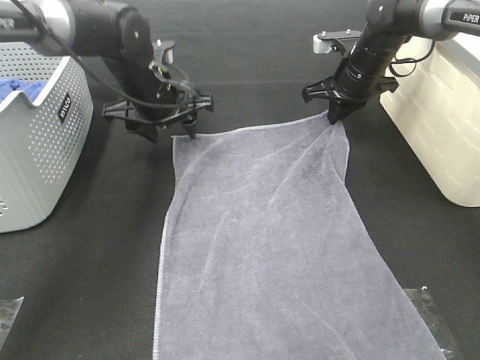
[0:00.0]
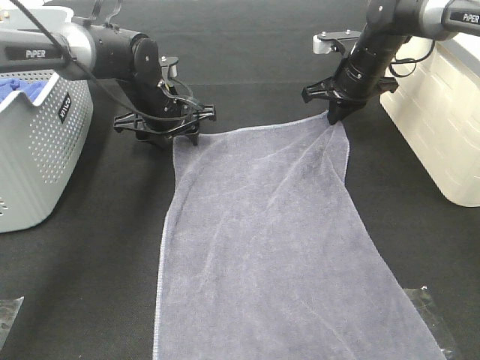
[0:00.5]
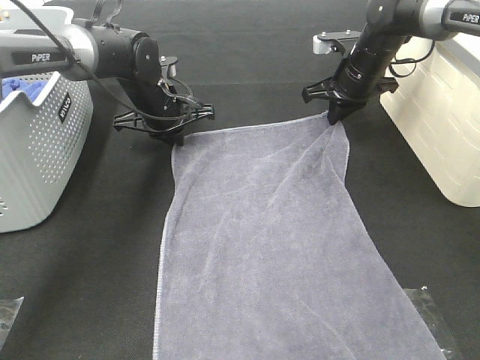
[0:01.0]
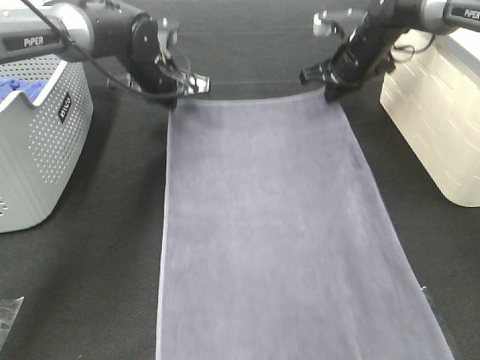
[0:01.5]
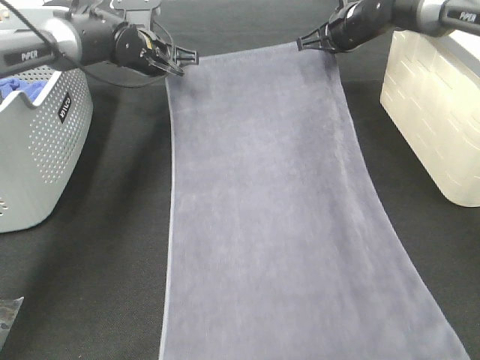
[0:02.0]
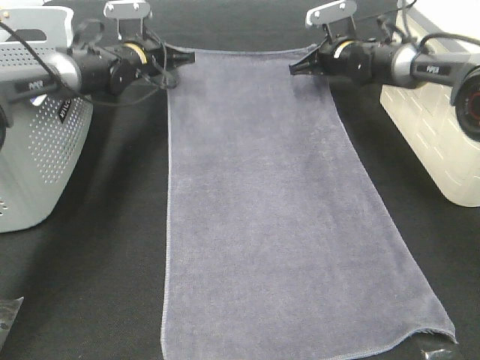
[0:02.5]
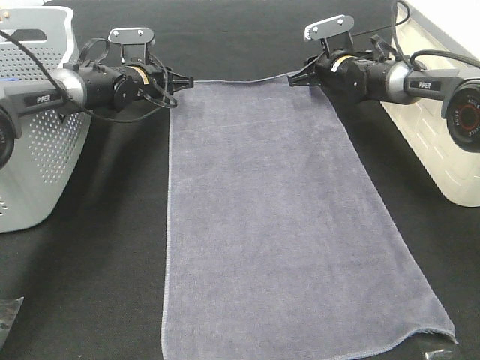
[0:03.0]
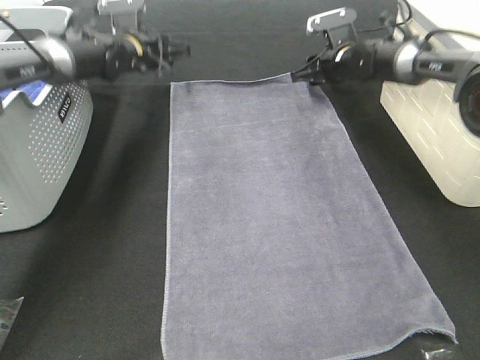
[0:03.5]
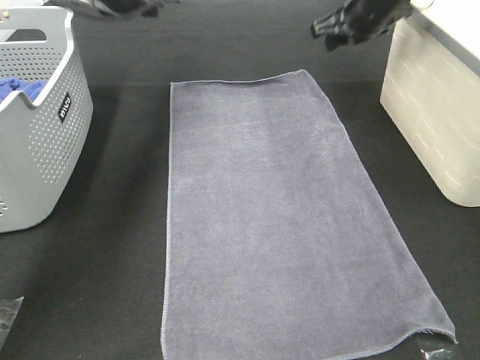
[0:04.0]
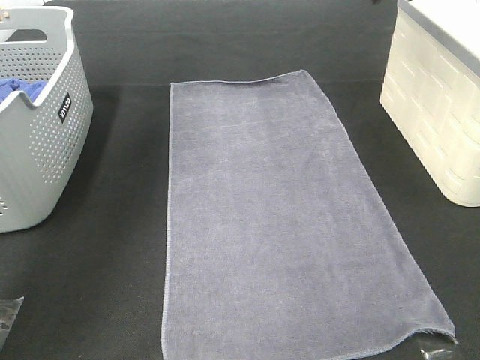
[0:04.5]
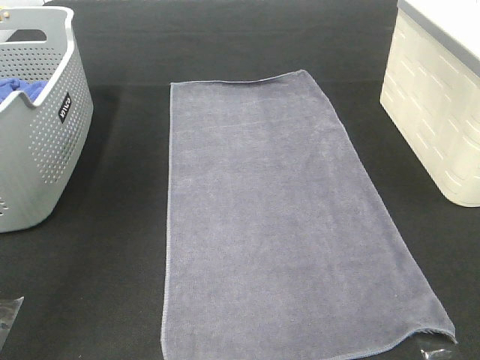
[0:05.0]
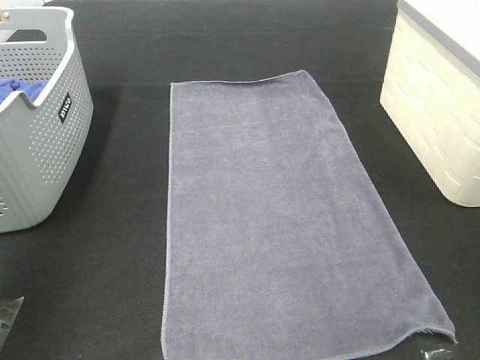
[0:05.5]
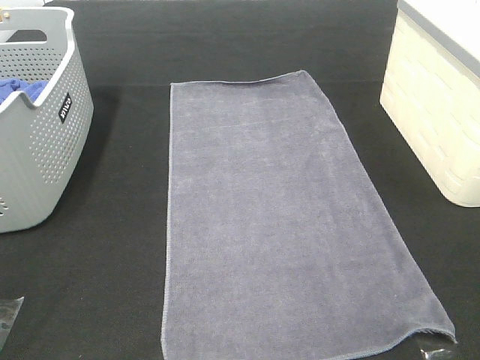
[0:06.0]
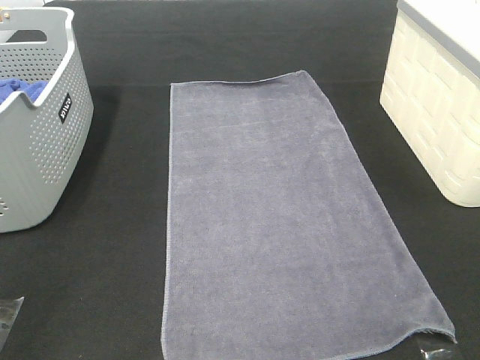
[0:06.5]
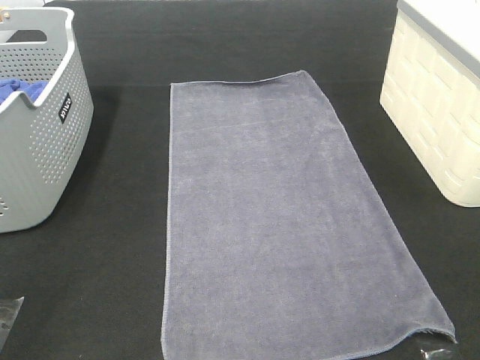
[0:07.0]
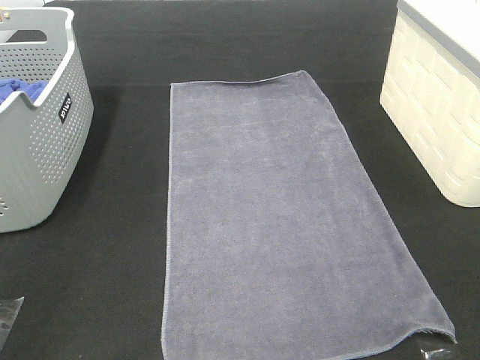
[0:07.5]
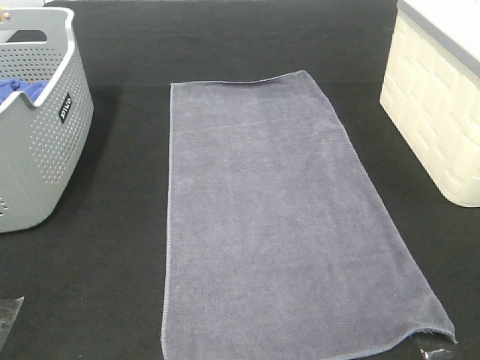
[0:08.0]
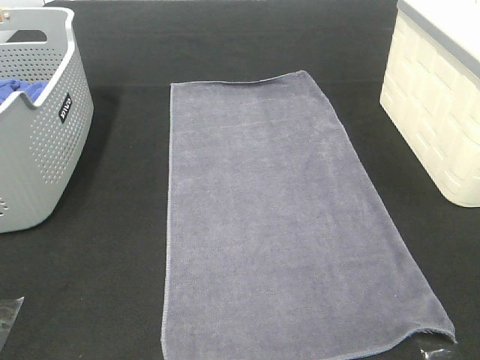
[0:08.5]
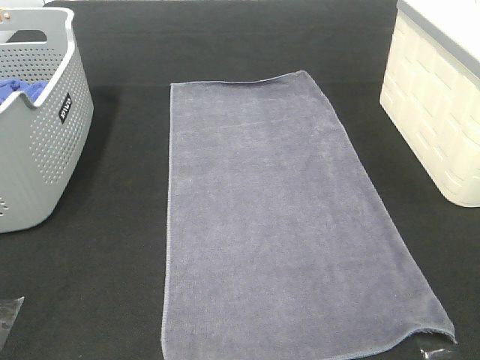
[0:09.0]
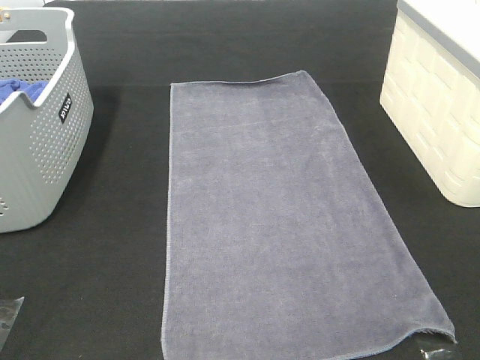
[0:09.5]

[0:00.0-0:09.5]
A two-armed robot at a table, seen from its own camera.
Task of the whole recording: Remove the towel and place it.
0:00.0 to 0:02.0: The right gripper travels forward by approximately 5 cm; the left gripper goes about 10 cm forward, and closes.
0:02.0 to 0:04.0: The right gripper goes some 5 cm upward, and opens, while the left gripper is displaced upward by approximately 15 cm, and opens its fingers.
0:04.0 to 0:05.5: Both grippers travel together backward, roughly 35 cm.

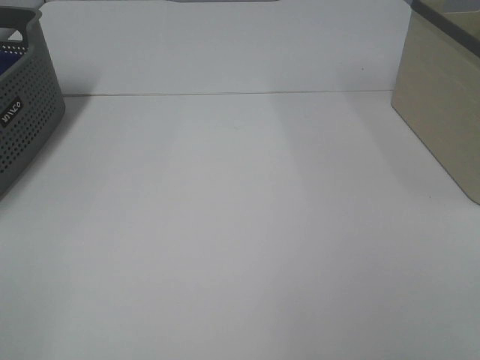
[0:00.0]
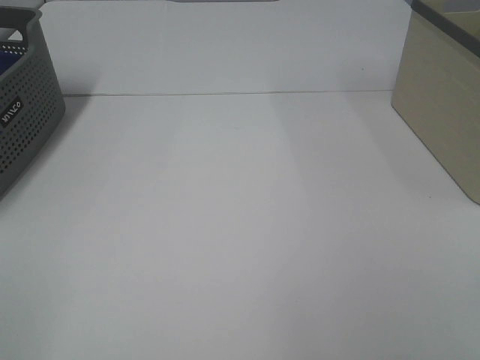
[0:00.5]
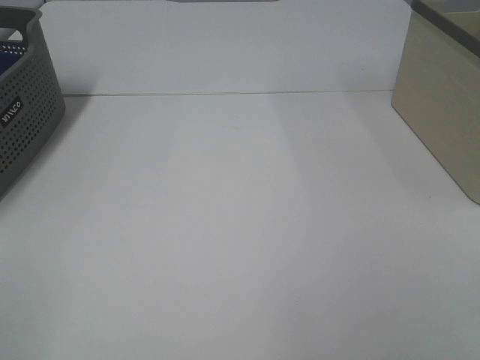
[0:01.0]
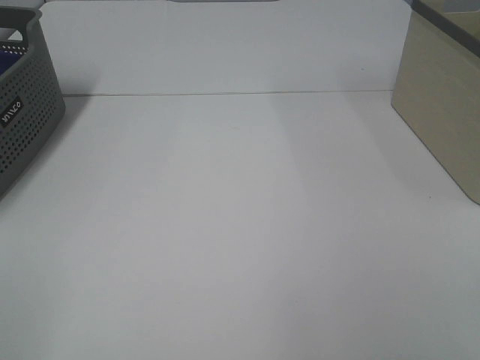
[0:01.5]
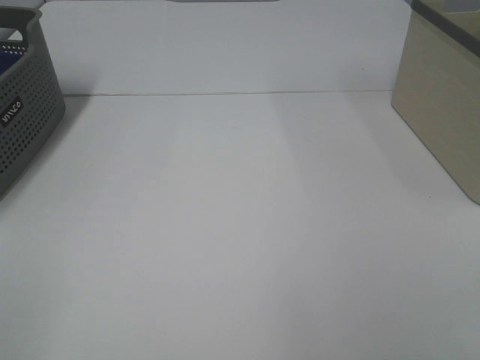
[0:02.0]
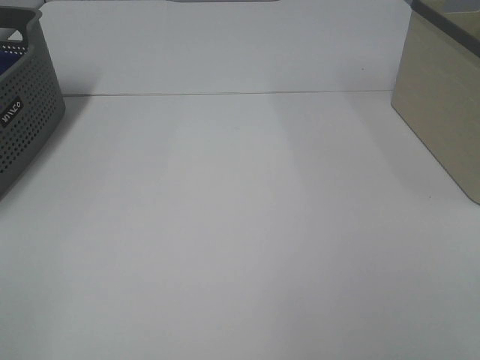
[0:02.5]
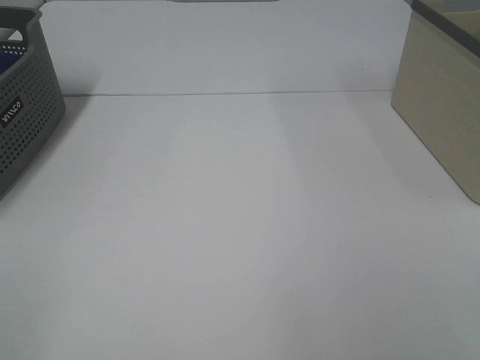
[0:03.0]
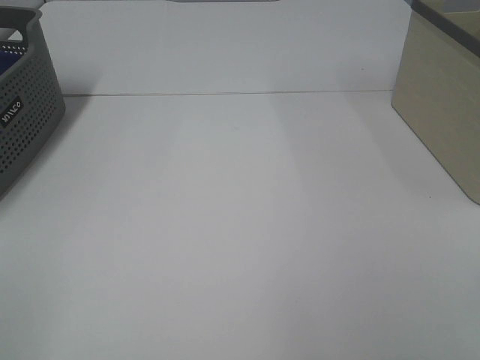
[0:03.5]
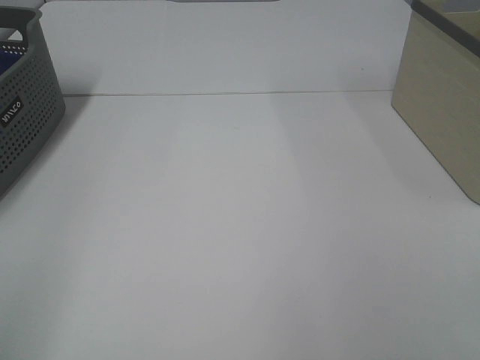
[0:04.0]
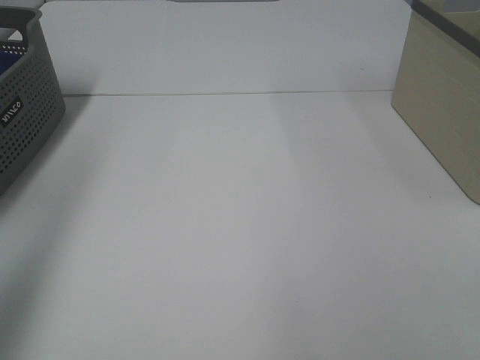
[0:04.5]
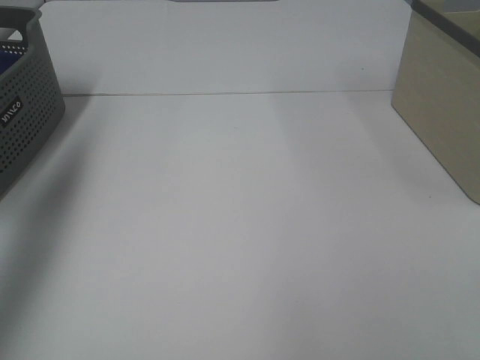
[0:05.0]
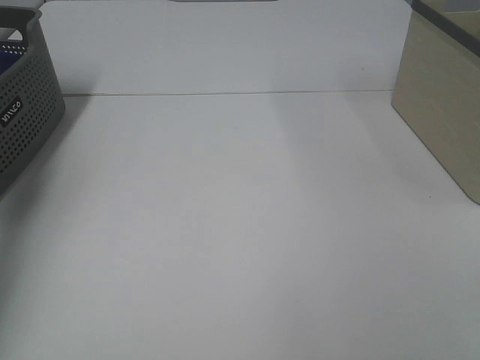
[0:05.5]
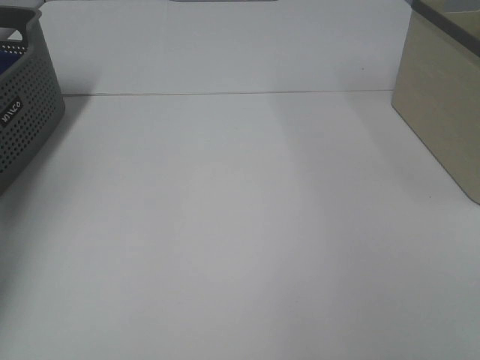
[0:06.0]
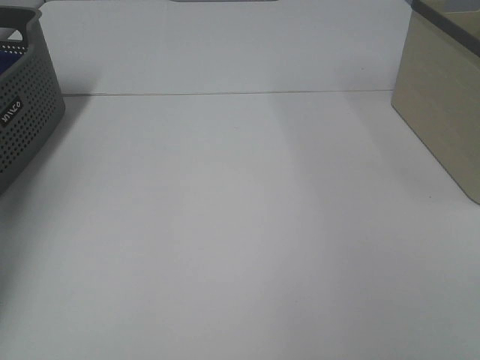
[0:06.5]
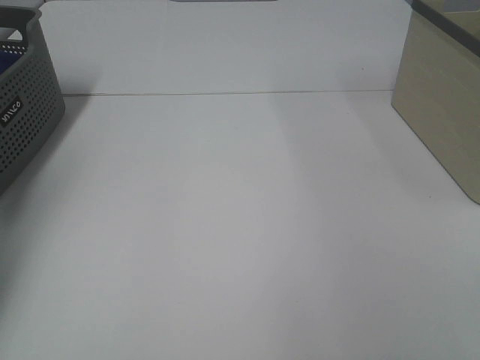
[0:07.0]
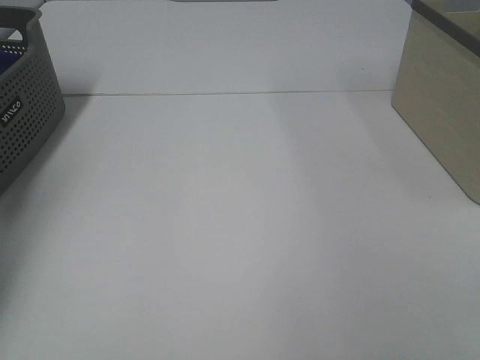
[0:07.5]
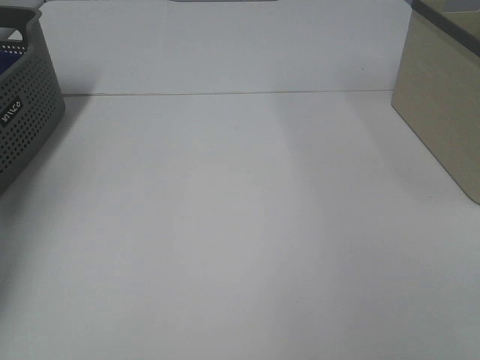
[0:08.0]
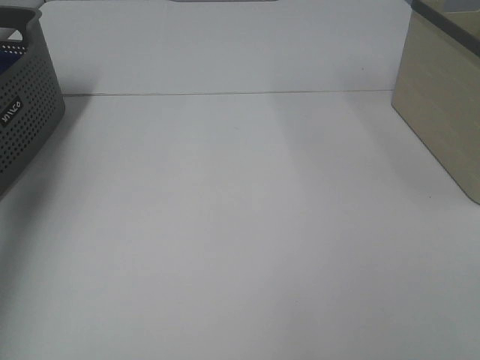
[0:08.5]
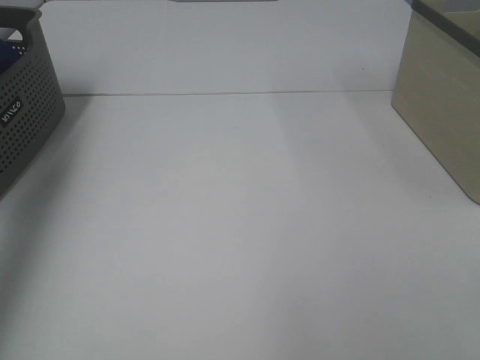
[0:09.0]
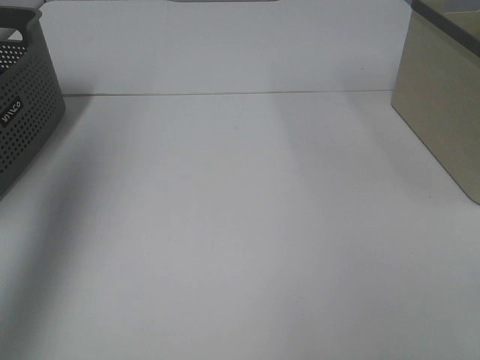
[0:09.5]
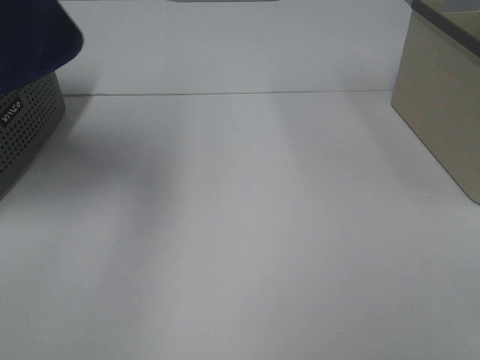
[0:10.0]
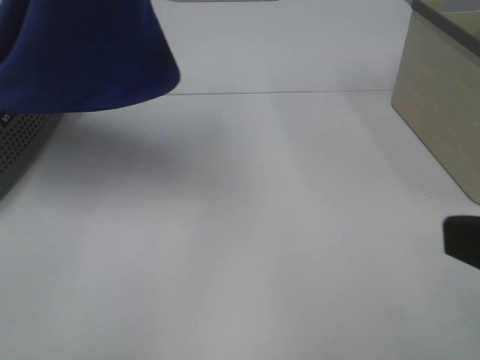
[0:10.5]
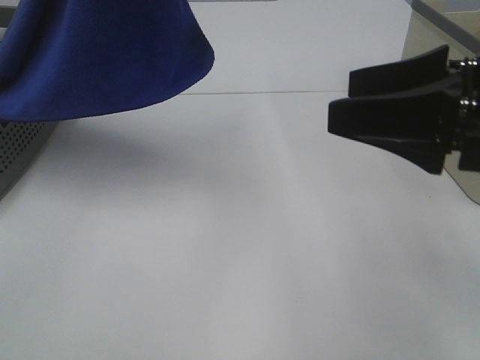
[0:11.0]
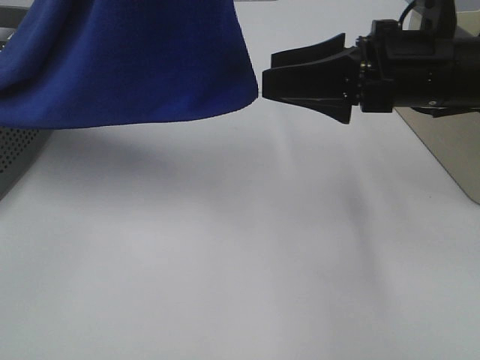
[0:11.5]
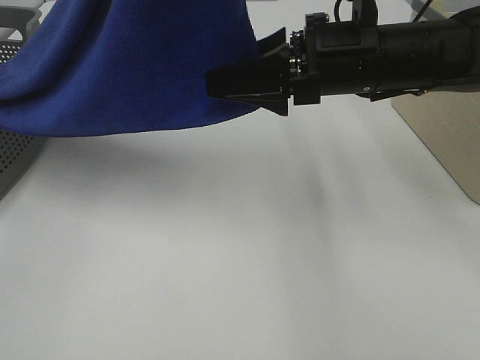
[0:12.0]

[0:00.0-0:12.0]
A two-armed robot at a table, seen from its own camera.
Task of the whole recording: Remove the towel and place it.
0:00.0 to 0:02.0: The two grippers keep their place.
0:04.0 to 0:06.0: The left gripper heads forward, covering some 40 cm.
0:08.0 to 0:10.0: The left gripper shifts approximately 50 cm upward, to the right and backward.
0:10.0 to 0:12.0: The left gripper moves to the right, approximately 10 cm. Meanwhile the right gripper travels forward and to the left by some 35 cm.

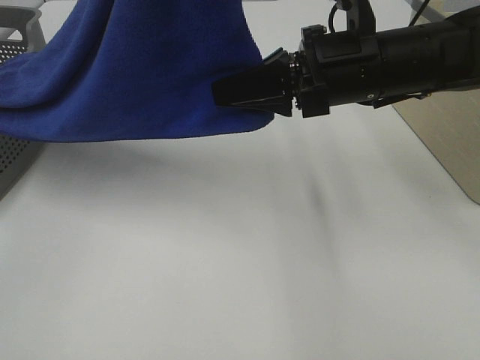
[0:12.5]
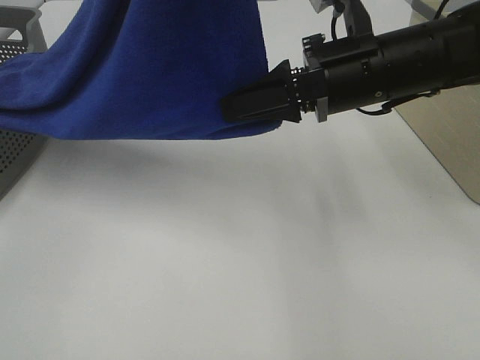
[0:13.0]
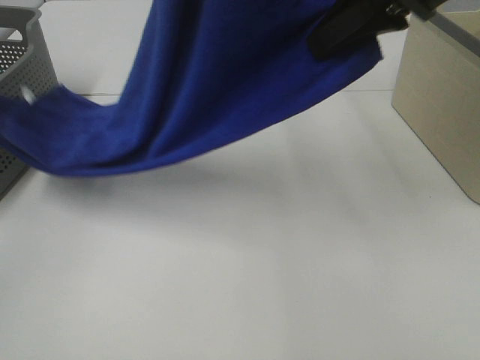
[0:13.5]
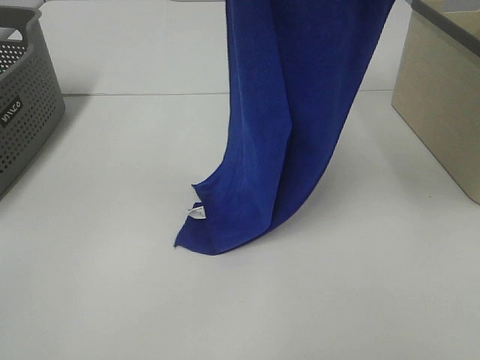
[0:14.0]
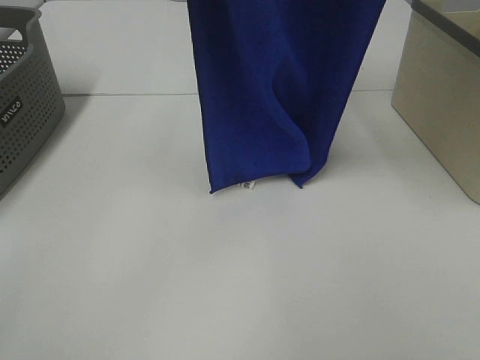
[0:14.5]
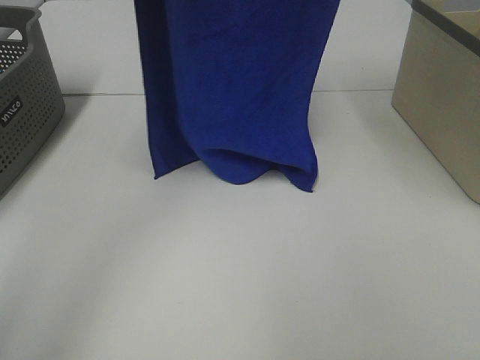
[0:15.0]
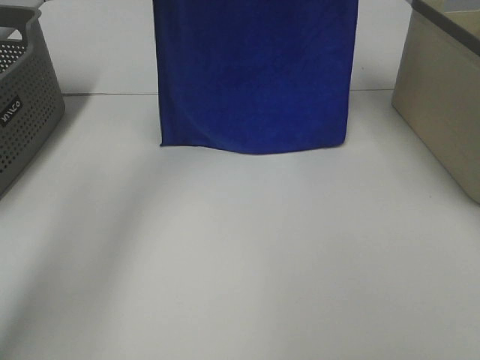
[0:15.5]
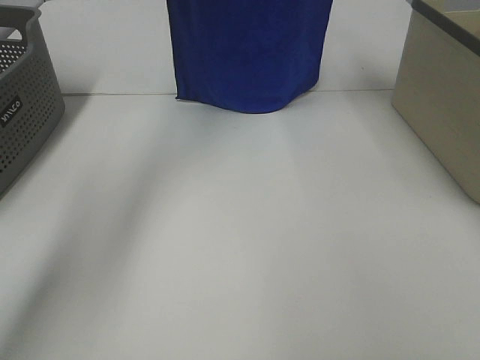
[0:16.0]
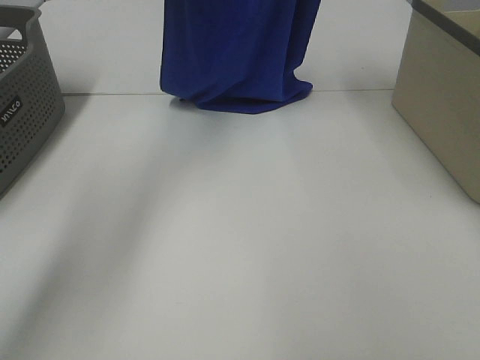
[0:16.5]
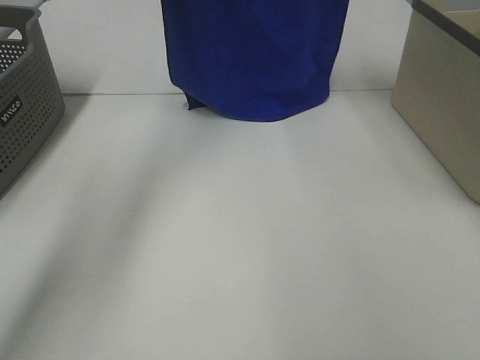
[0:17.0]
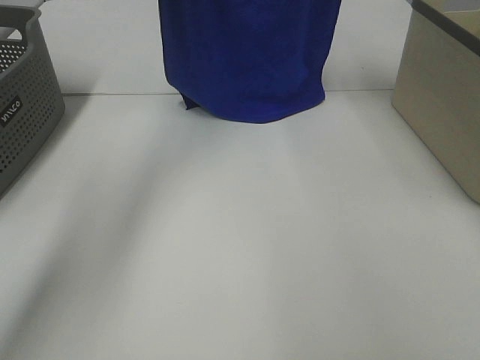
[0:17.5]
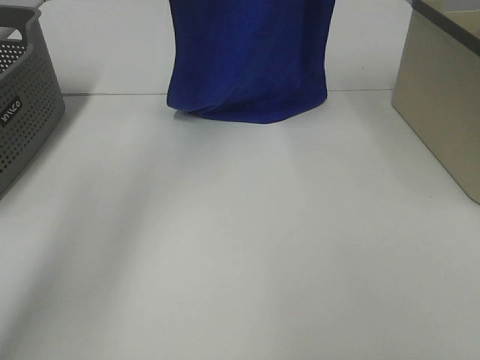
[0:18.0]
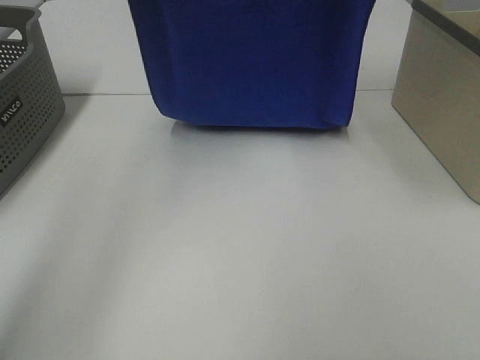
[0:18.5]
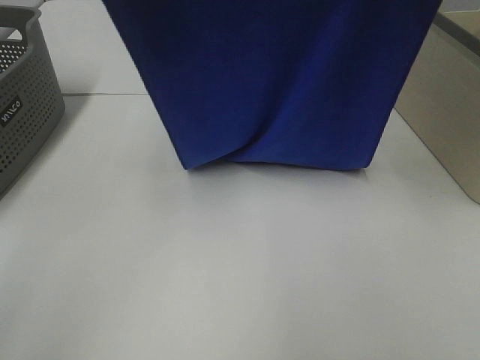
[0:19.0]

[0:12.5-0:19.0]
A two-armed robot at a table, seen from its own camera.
Task of the whole recording: Remove the towel and place it.
Step, 0:13.0 to 0:18.0: Left hand: spread the blue towel flat on the table.
Step, 0:13.0 to 0:18.0: Right hand: spread the blue towel flat on the table.
0:12.5 to 0:14.5: The left gripper travels forward by roughly 10 cm. The right gripper goes about 30 cm upward.
0:14.5 to 0:17.0: Both grippers move forward, about 15 cm.
0:17.0 to 0:19.0: The grippers both shift backward by some 20 cm.
